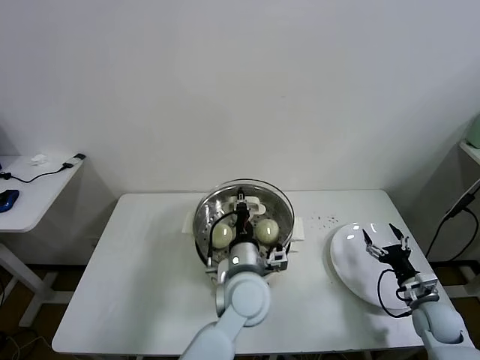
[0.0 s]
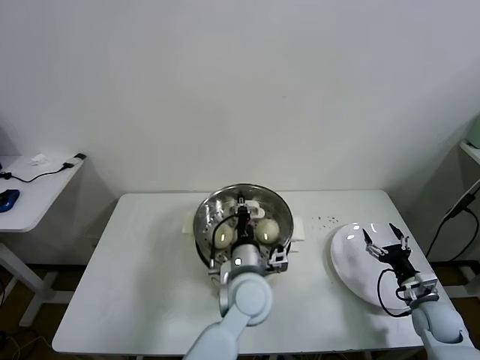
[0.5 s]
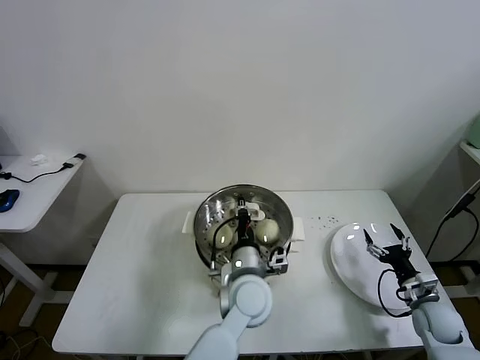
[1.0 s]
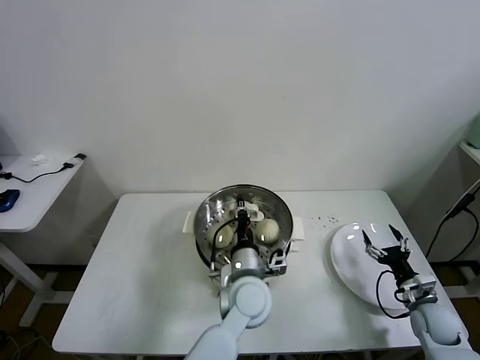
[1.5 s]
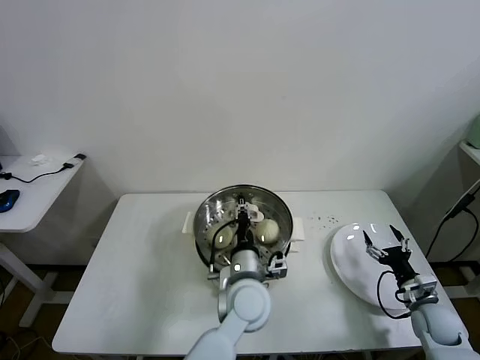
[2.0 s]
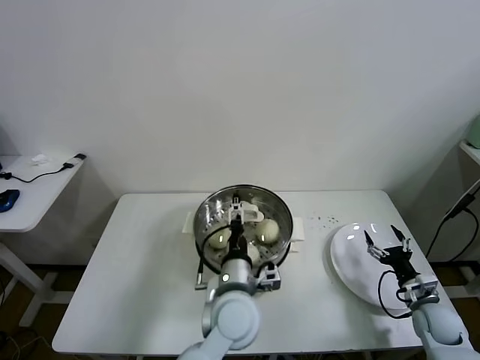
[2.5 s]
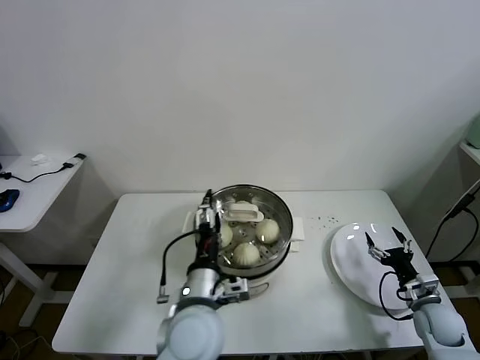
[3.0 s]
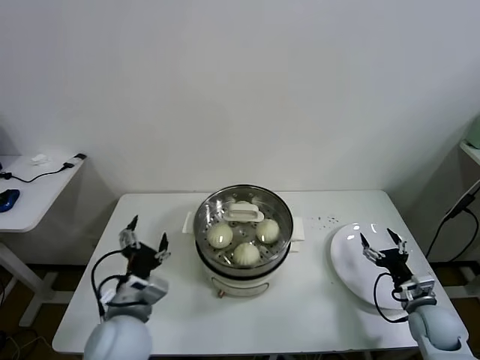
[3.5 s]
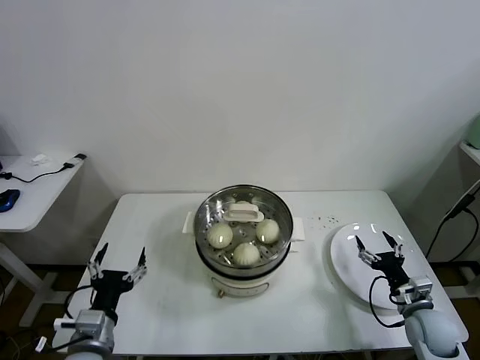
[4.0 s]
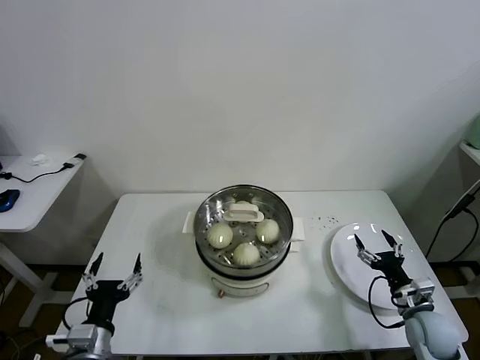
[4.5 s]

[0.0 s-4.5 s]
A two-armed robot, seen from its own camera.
Task of the whole recording: take steamed baozi put them in steamer.
Step, 0.0 to 2.0 s: Place the pot lid on the steamer with left gripper.
0.0 to 2.0 s: The grippers make only small movements.
2.0 to 4.5 s: The left gripper goes some 35 cm to the left and backward, and opens its fingers. Meanwhile the right gripper shifts by roughly 5 cm.
